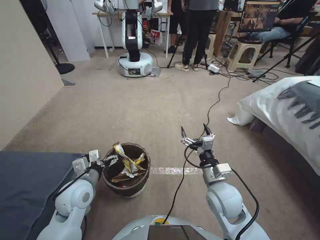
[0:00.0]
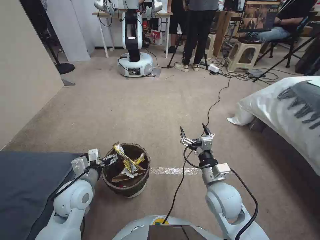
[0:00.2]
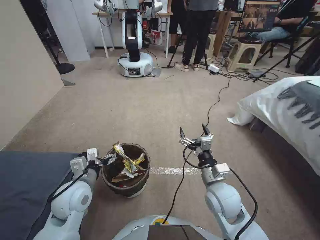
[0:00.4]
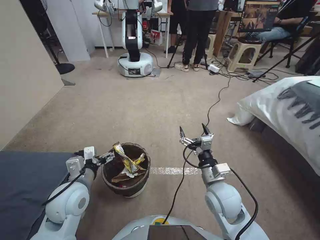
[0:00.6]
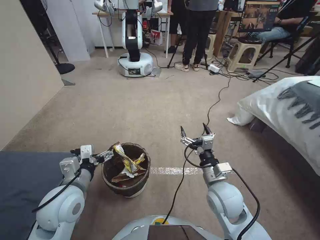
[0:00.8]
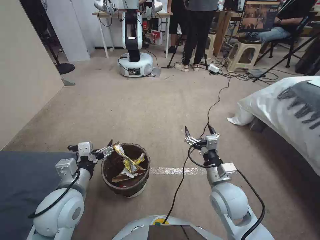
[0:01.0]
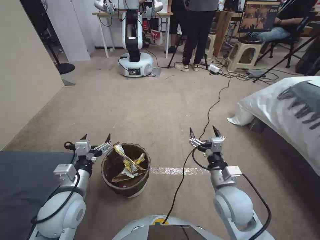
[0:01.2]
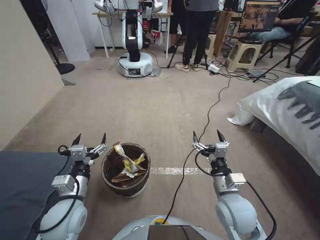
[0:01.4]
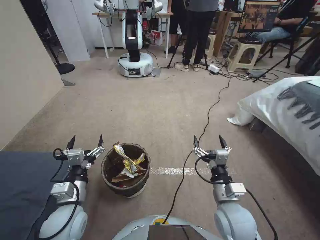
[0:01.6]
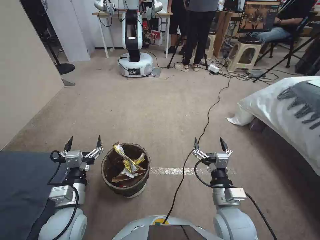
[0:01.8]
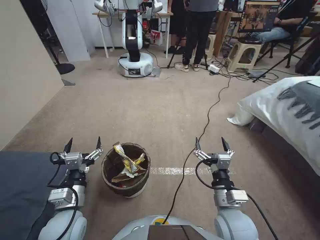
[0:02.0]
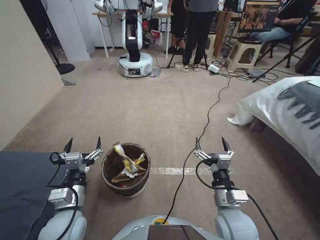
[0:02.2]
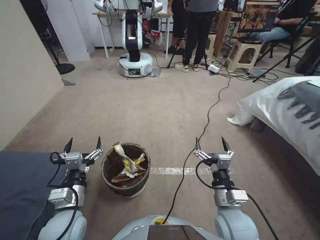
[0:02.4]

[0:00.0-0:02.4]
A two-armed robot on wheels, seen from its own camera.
Task of the whole recording: Pick up the trash bin, then pick up the garbage from the floor and place it into the trash bin.
0:00.0 to 0:01.2: The left gripper shifts about 5 cm upward.
0:01.2 to 0:02.4: The right gripper shifts about 5 cm backward. The left gripper moves downward, about 5 cm.

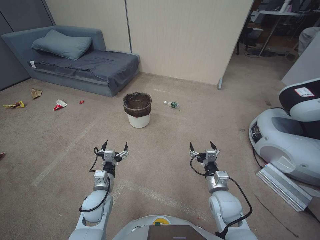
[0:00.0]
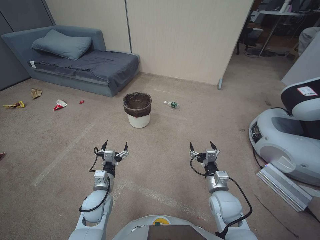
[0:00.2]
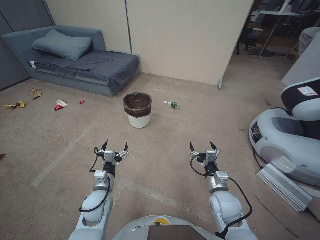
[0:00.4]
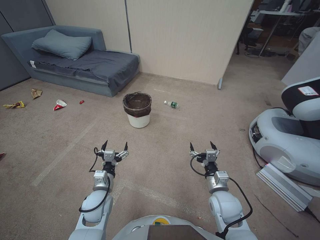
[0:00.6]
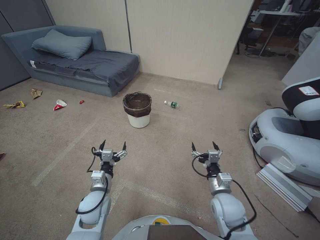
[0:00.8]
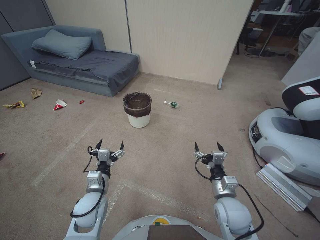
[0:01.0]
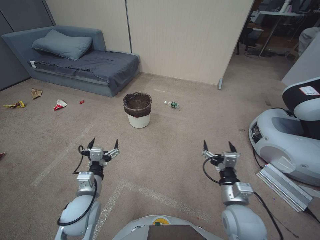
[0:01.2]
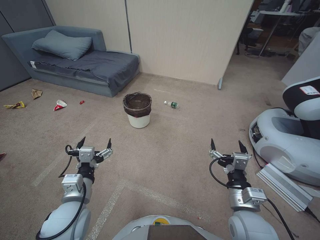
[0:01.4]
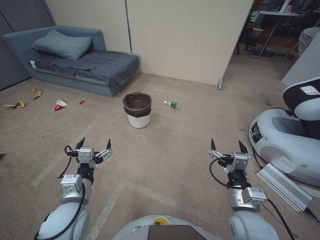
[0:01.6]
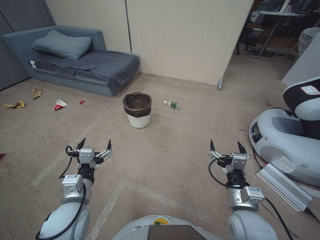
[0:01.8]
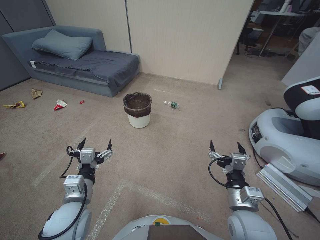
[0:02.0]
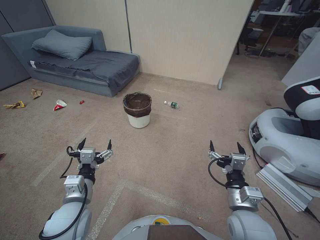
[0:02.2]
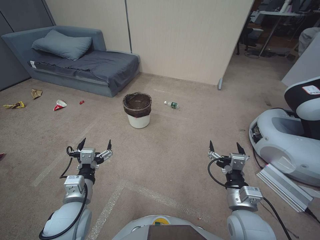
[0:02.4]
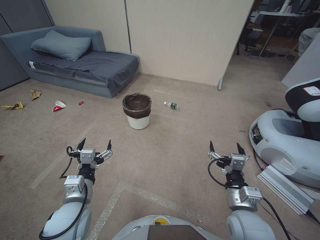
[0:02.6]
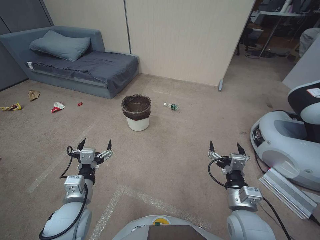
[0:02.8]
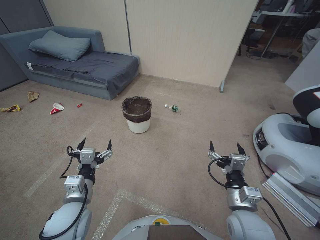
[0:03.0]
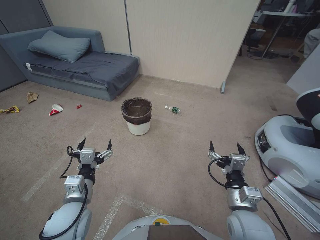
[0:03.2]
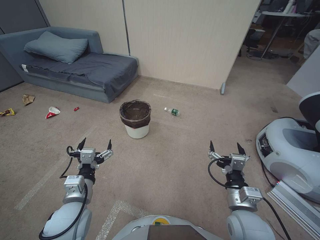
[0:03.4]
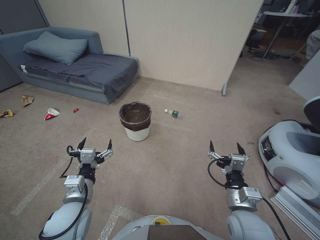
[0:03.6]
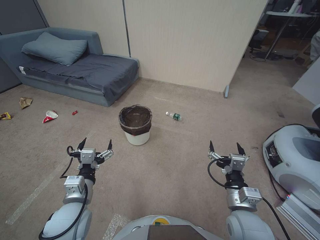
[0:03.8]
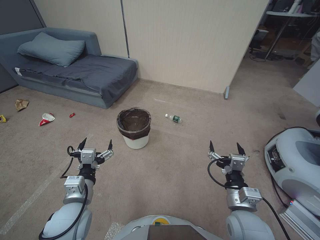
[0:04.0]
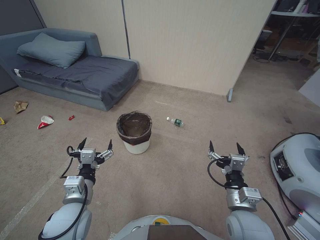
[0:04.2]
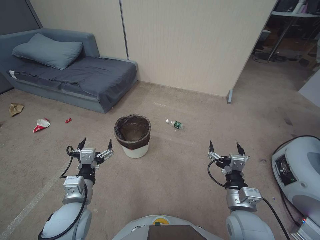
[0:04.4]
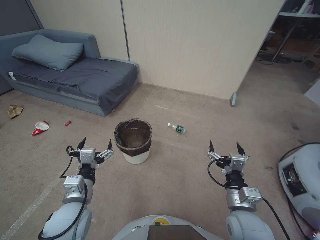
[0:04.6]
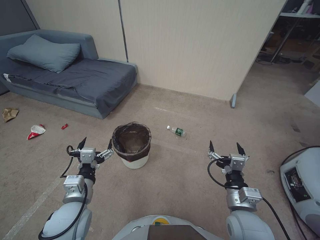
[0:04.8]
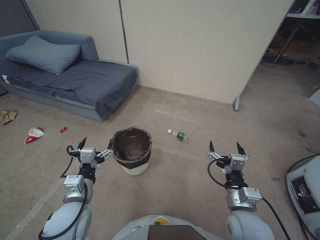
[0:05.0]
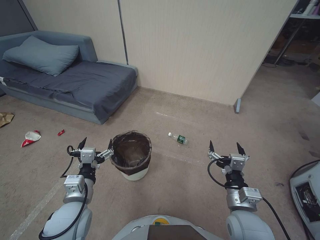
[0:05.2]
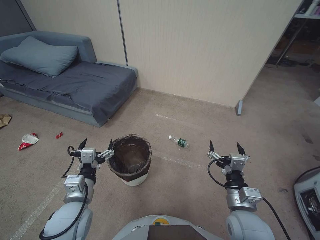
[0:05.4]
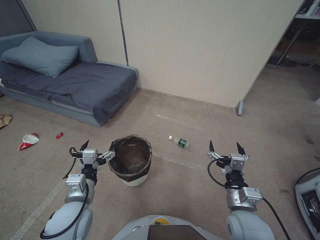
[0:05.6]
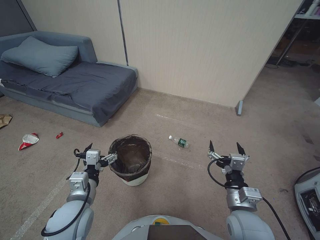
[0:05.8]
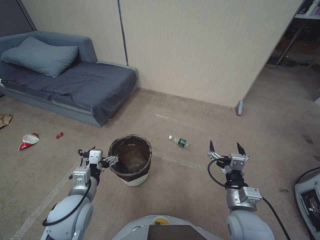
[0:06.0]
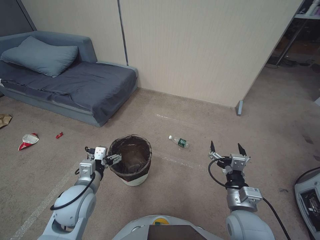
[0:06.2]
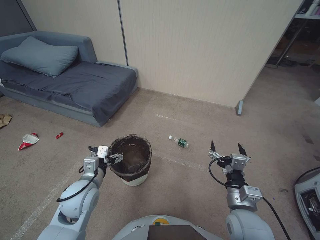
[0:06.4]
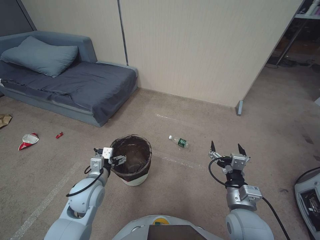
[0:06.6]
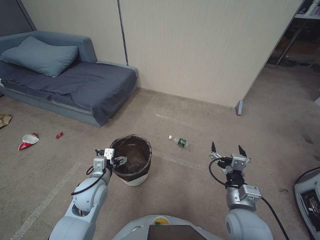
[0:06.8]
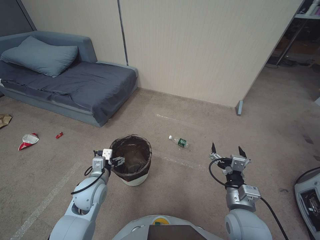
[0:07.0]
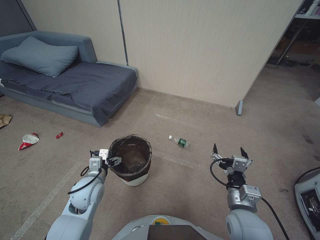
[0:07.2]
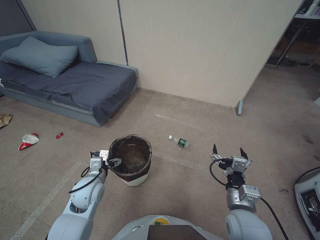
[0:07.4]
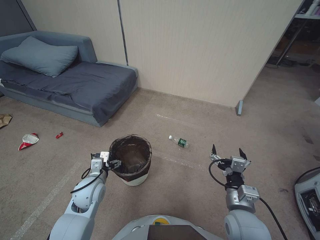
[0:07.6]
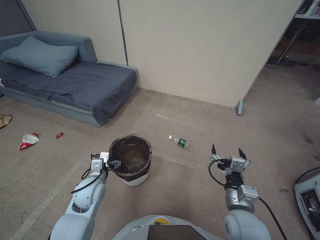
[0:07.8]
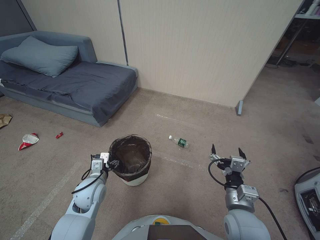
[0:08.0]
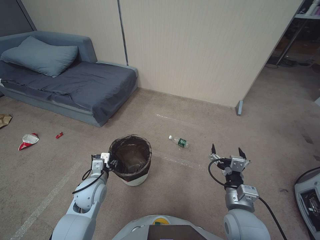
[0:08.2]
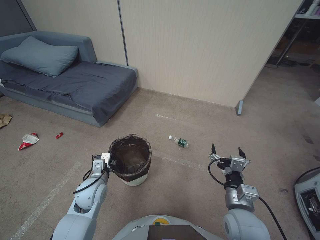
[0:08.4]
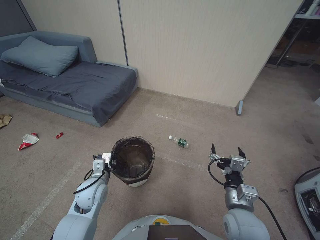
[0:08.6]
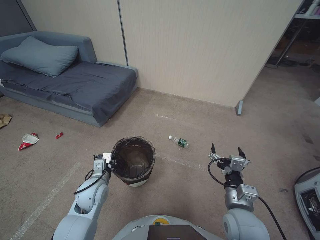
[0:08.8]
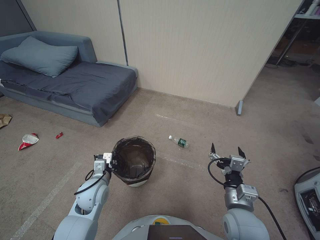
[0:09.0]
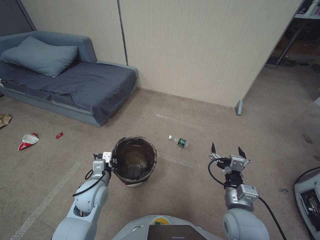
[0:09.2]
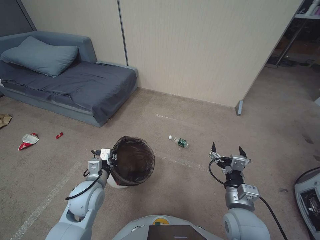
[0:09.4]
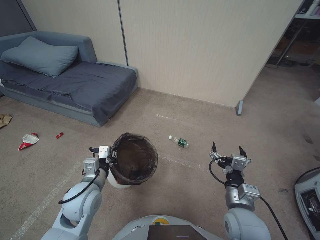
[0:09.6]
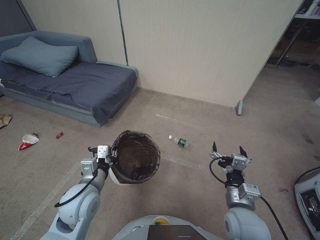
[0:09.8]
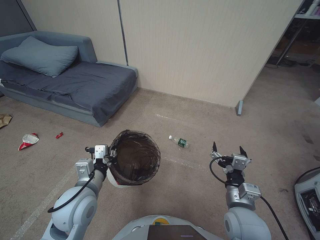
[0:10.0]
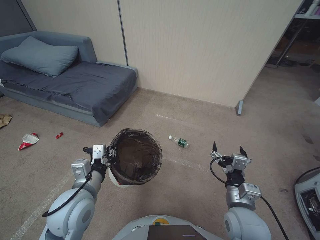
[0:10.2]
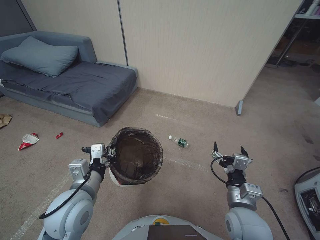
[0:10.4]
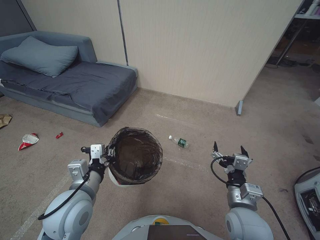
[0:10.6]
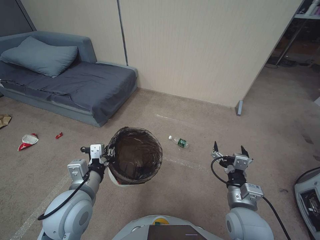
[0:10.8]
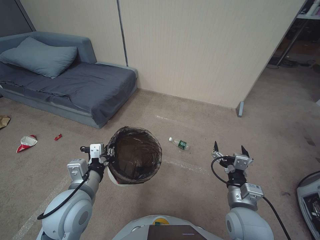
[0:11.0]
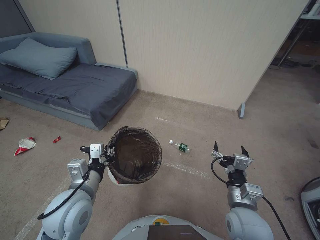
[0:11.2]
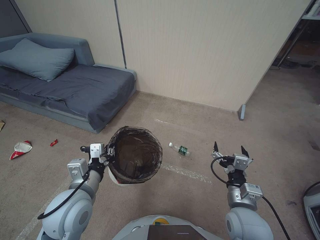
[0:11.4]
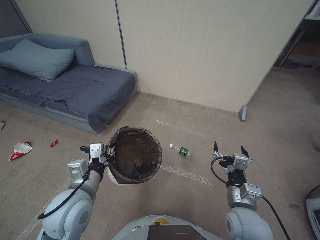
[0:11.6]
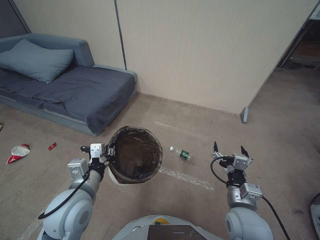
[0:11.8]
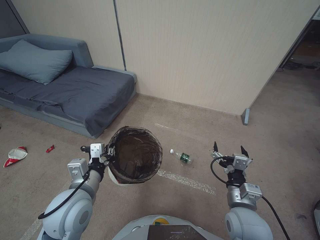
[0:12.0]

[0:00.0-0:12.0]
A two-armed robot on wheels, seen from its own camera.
Task of the whole recording: Pick up the trash bin, then pick up the garbage from the floor and place it into the trash bin.
0:01.6 to 0:03.0: The grippers stay close to where they were, moving slightly.
0:06.0 to 0:07.6: The left gripper goes roughly 10 cm forward and downward.
0:07.6 to 0:09.0: The left gripper closes up.
0:09.0 to 0:10.4: The left gripper moves upward and backward, approximately 15 cm.
0:10.4 to 0:12.0: Both grippers stay put.

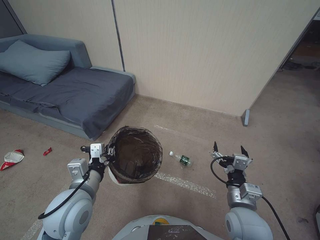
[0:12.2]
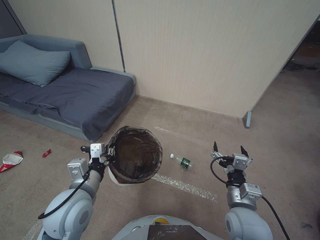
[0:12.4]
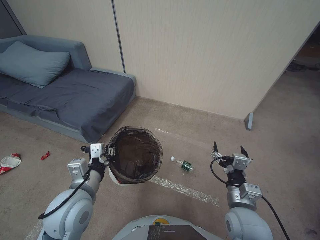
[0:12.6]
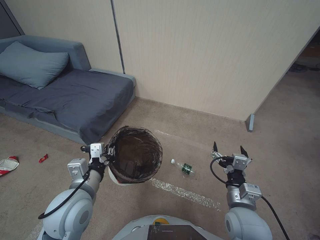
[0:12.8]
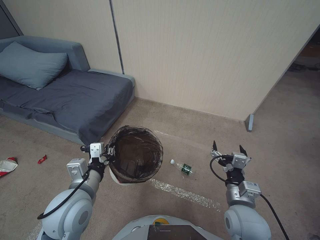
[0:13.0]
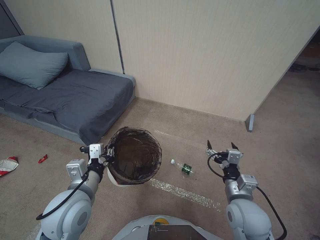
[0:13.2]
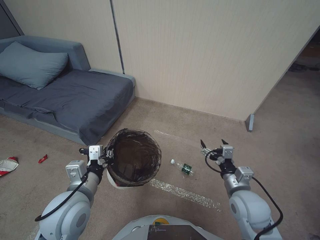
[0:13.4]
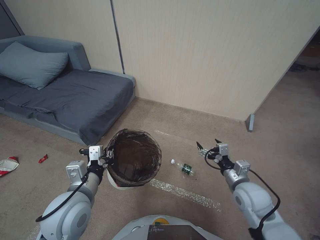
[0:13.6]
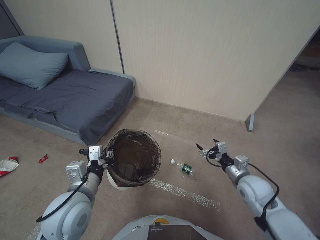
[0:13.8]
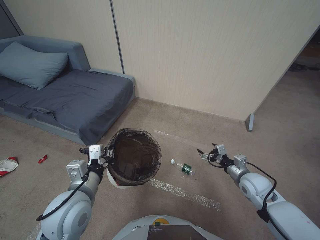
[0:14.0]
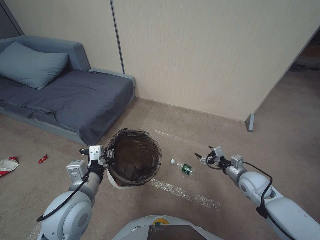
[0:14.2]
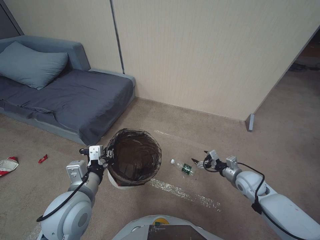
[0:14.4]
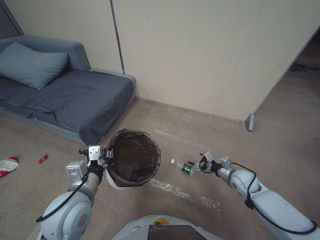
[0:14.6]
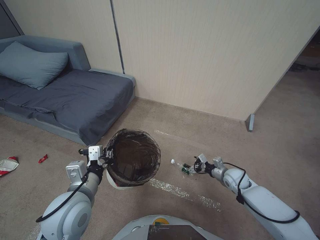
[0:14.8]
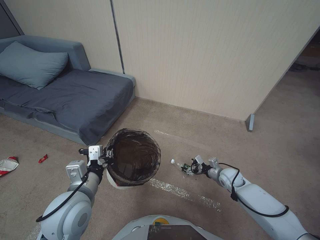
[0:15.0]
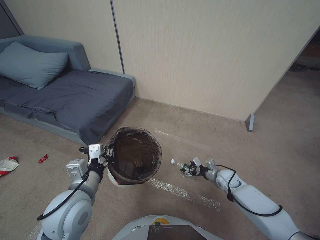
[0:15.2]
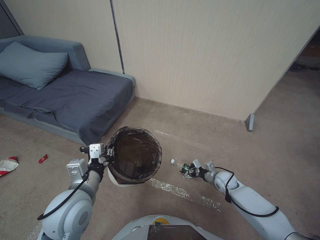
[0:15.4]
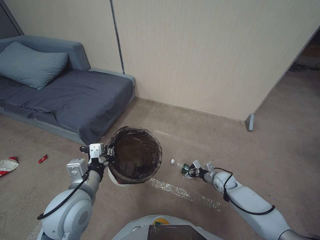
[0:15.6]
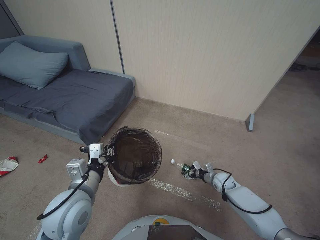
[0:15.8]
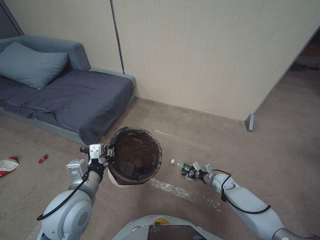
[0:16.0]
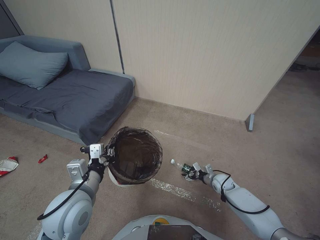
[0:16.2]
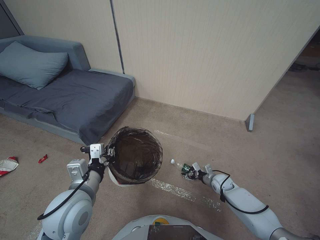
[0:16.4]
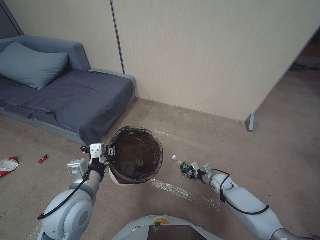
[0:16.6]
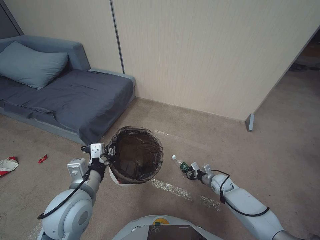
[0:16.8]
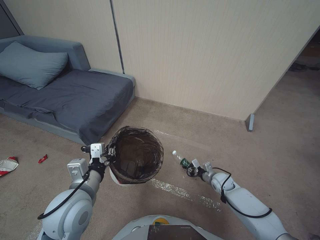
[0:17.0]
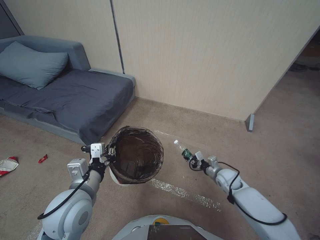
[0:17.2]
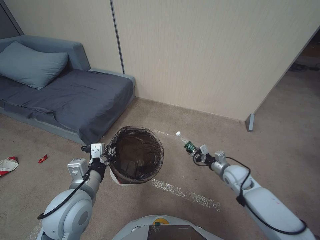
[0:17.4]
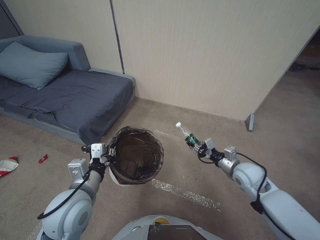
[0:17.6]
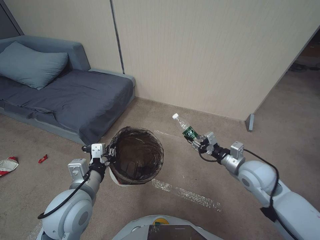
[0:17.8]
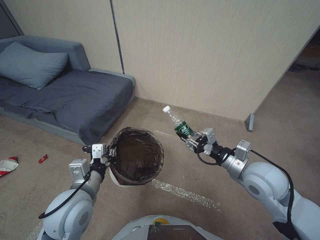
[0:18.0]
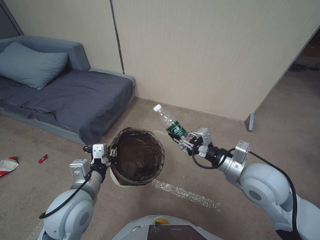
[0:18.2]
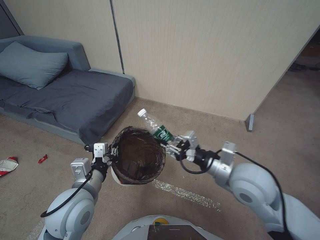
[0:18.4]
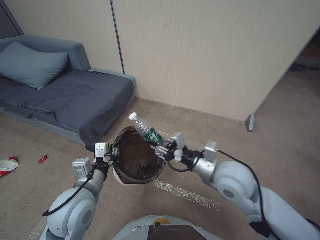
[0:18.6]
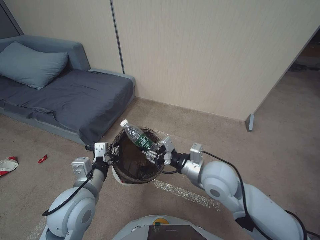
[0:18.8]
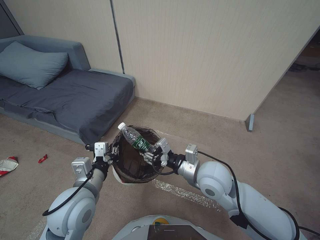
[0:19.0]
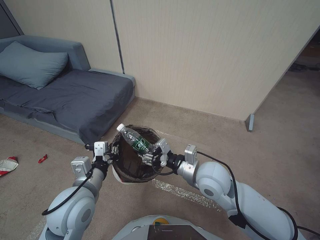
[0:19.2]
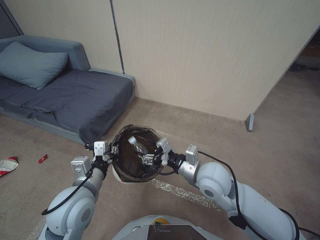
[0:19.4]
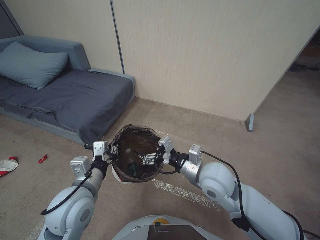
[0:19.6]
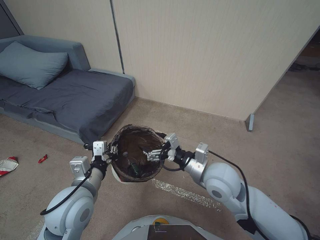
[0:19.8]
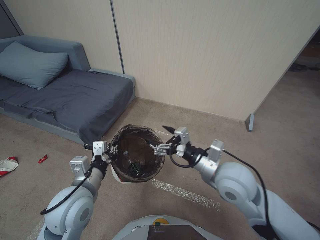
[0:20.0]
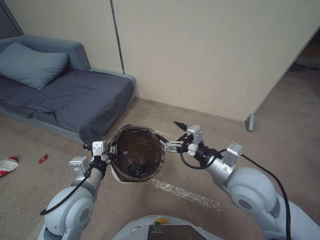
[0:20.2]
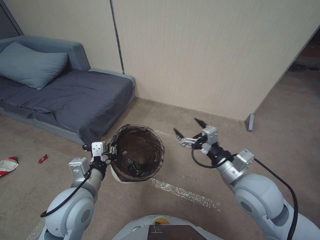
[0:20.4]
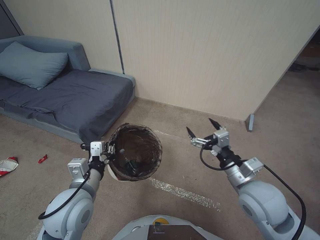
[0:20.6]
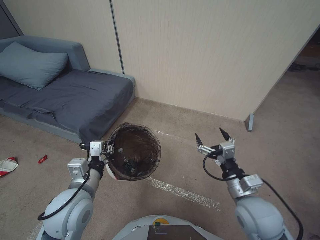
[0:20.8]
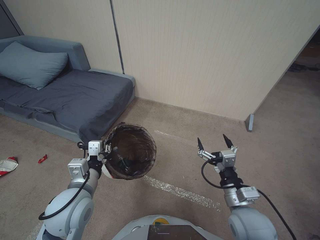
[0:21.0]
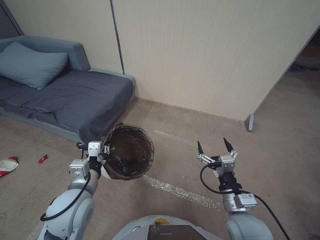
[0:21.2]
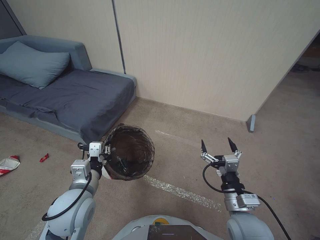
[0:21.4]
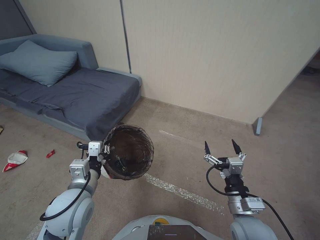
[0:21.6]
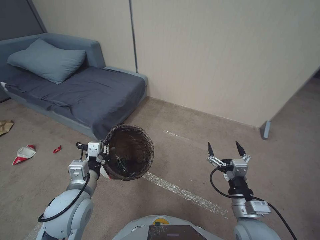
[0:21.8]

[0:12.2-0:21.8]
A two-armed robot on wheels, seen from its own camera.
Task of the whole recording: Pick up the trash bin, then pick up the garbage from the floor and place it into the trash bin.
0:12.2 to 0:13.8: The right gripper shifts about 10 cm forward and to the right.
0:13.8 to 0:15.4: The right gripper shifts about 20 cm downward and forward.
0:15.4 to 0:17.0: The right gripper closes.
0:17.0 to 0:18.6: The right gripper goes roughly 35 cm upward.
0:18.6 to 0:20.2: The right gripper opens.
0:20.2 to 0:21.8: The right gripper is displaced downward and backward by about 15 cm.
